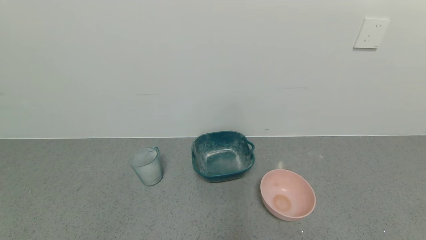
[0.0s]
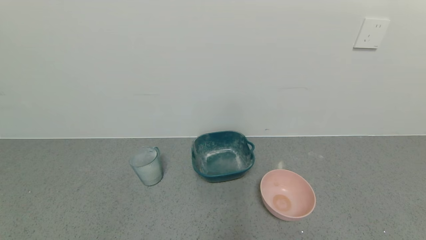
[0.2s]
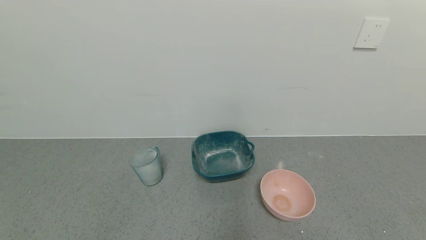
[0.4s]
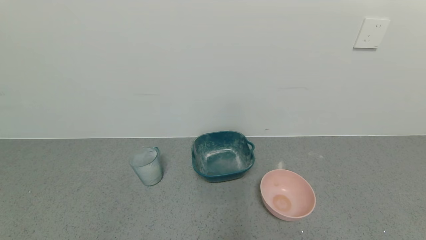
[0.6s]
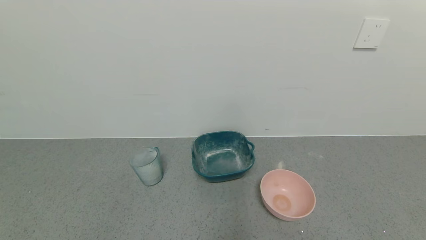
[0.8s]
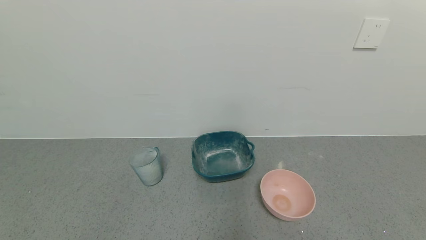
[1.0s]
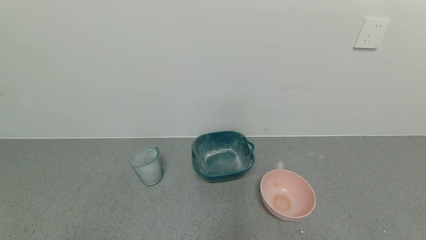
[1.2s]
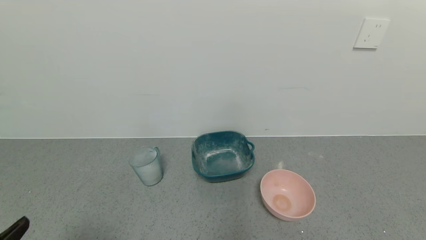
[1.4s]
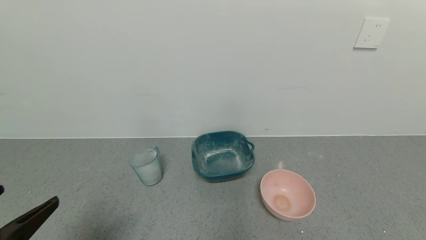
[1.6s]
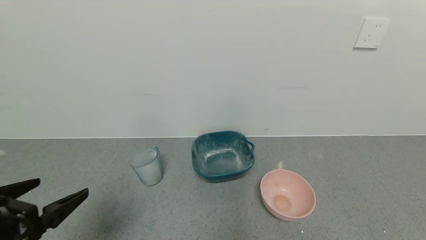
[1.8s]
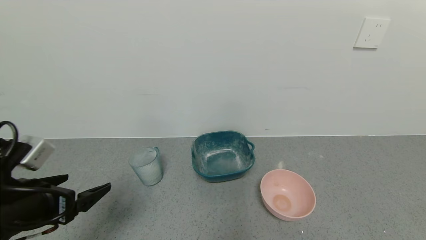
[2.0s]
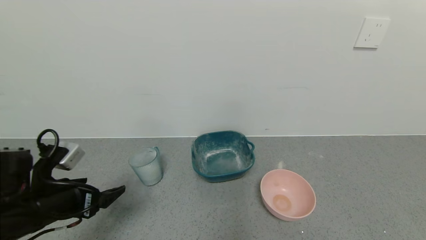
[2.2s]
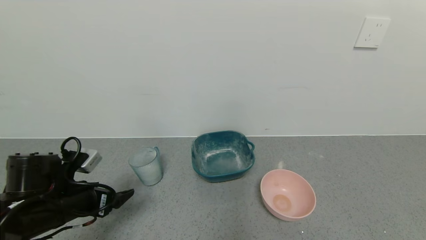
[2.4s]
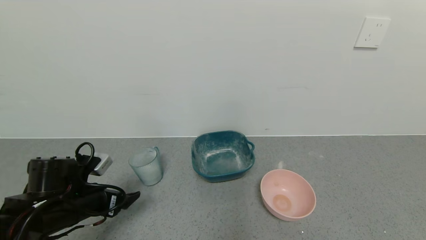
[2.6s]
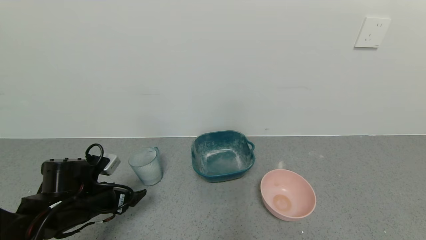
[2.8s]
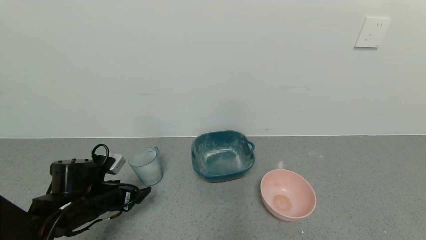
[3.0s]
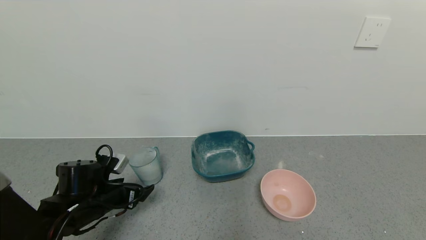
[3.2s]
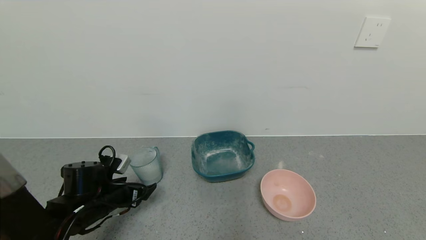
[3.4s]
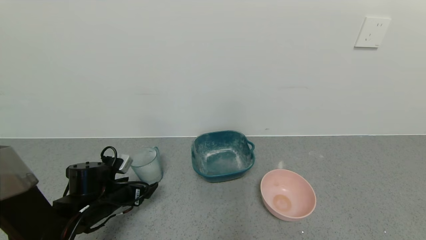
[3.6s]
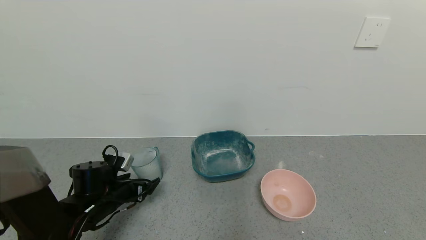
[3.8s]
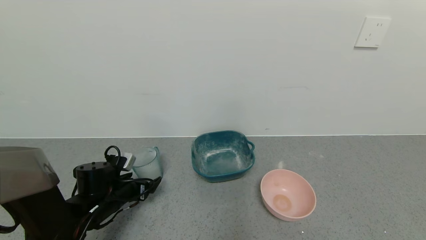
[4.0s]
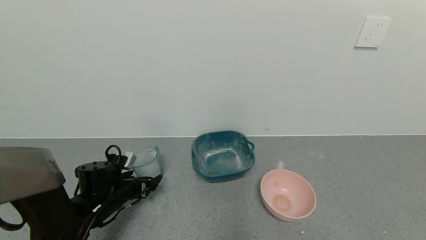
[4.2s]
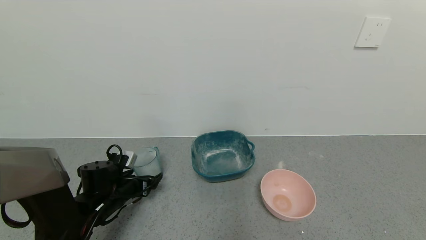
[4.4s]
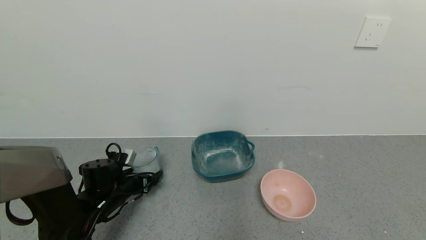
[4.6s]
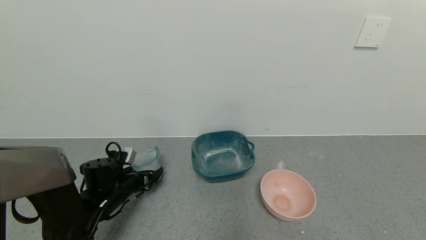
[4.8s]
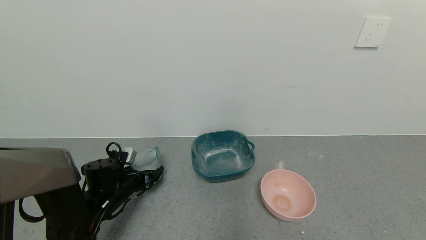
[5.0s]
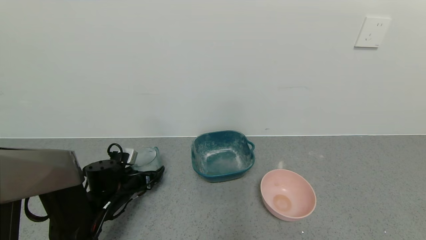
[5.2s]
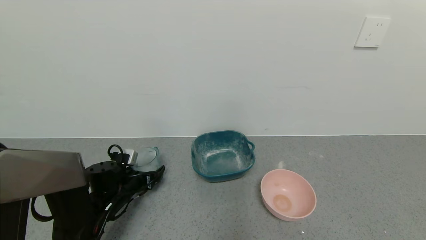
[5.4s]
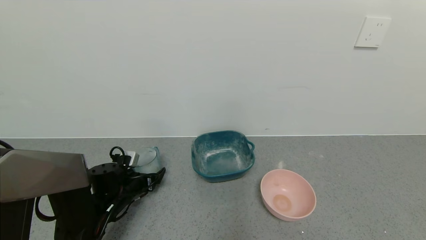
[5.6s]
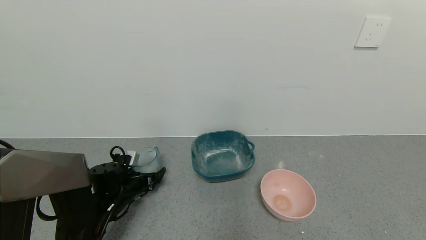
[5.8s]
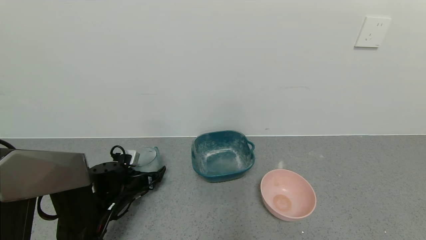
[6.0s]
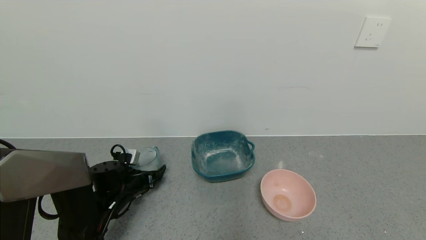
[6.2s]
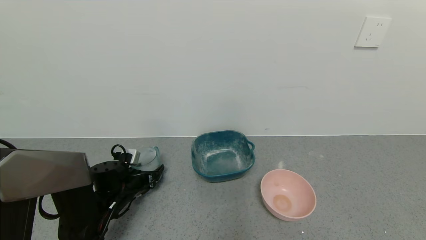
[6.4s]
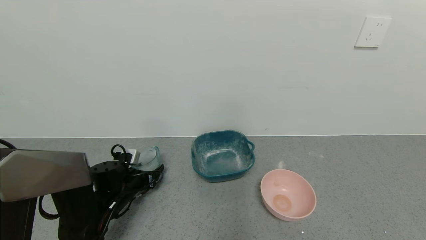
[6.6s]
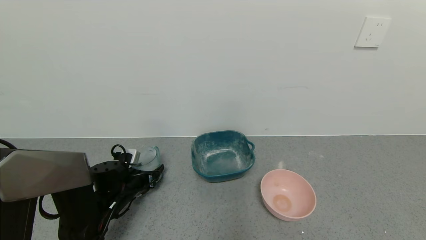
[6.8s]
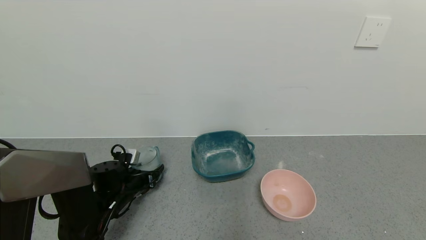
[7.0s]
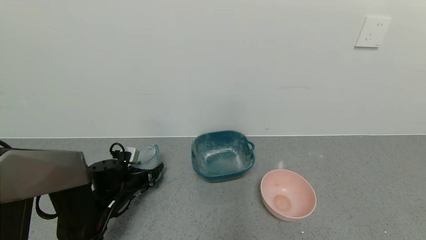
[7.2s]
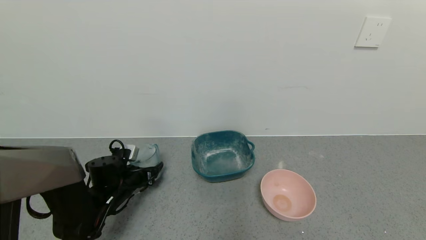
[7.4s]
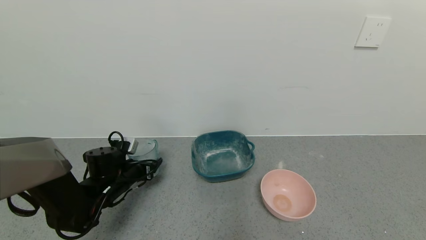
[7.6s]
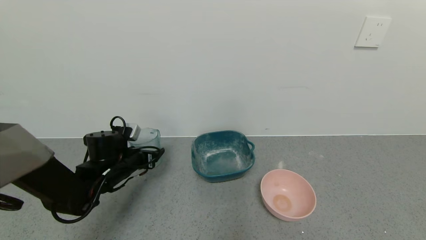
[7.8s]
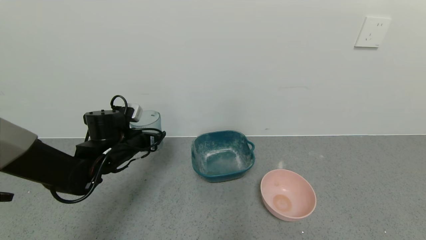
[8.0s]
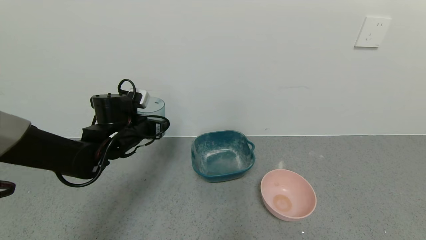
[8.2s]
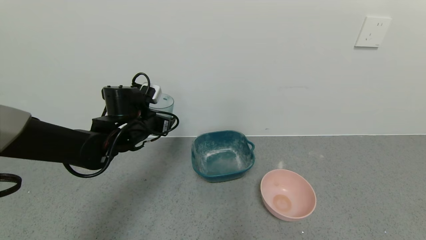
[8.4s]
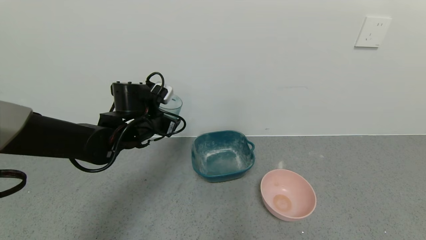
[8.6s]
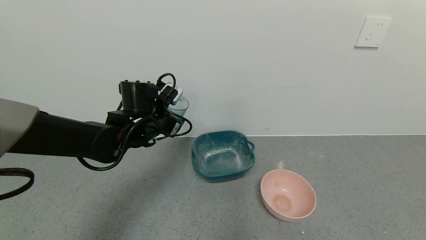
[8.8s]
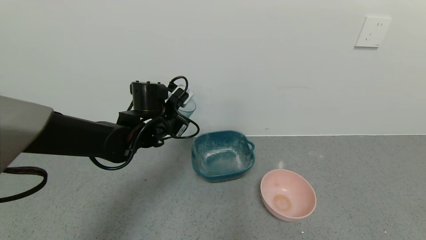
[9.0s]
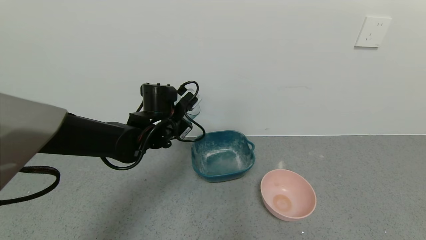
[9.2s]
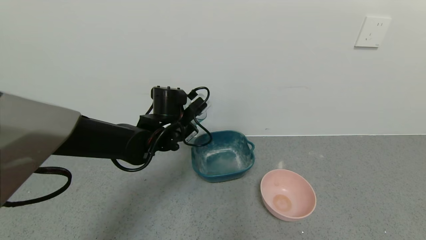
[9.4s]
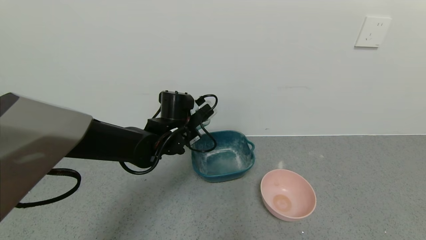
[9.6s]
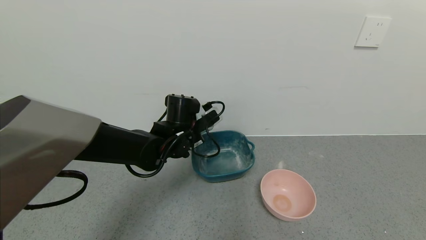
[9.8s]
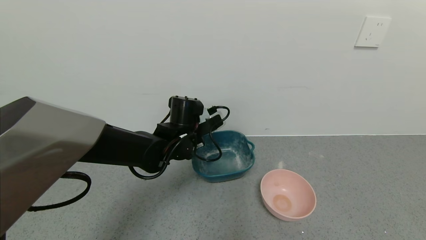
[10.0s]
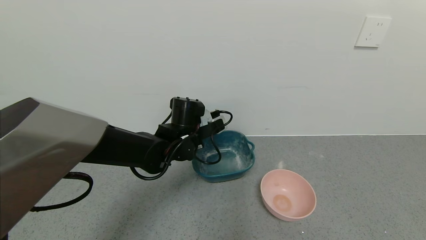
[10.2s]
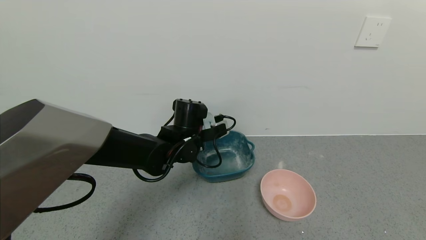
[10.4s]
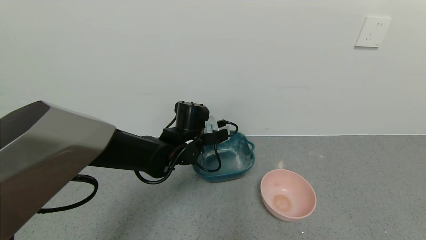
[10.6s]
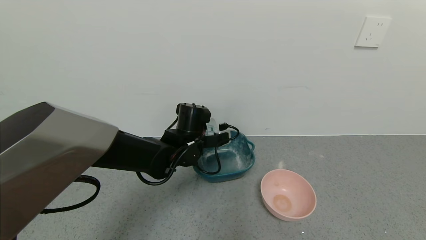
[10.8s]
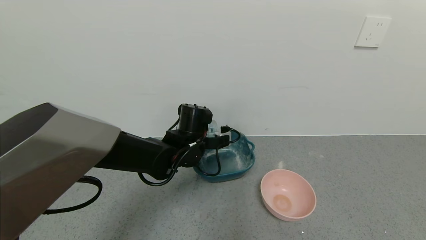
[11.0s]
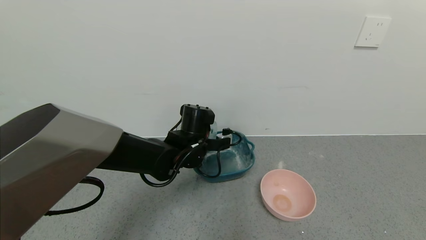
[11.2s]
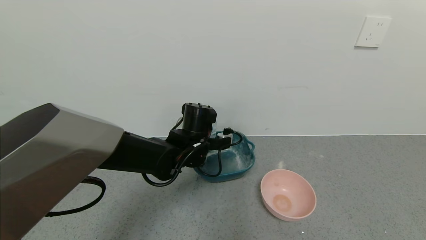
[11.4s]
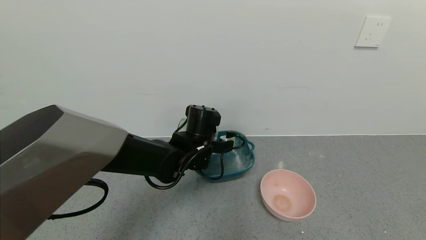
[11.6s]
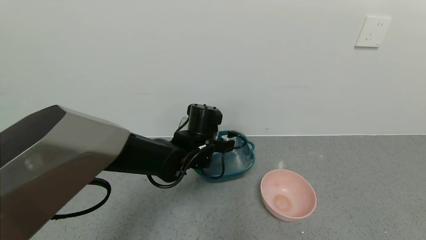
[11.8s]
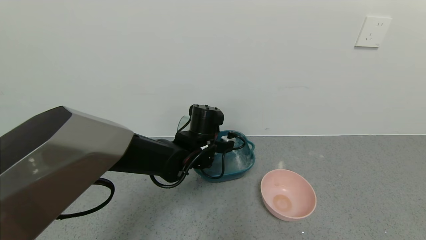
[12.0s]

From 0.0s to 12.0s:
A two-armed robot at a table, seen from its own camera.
Task of the whole recording: use a gripper to pick up the cup and pour the powder into a bowl or tray.
Step, from 0.0s to 6.6s: Pick up blue cup filled with milk powder with left gripper.
From 0.0s to 1.6s: The left gripper is displaced upward and forward by roughly 15 cm.
From 1.6s to 3.0s: The left gripper goes roughly 25 cm forward and downward.
From 3.0s to 4.4s: The left gripper changes place by about 5 cm.
From 4.4s to 6.0s: The grippers make only small movements.
From 6.0s to 7.6s: The left gripper closes.
From 7.6s to 9.0s: The left gripper travels upward and to the right by some 20 cm.
From 9.0s to 10.4s: The left gripper shifts some 5 cm to the right.

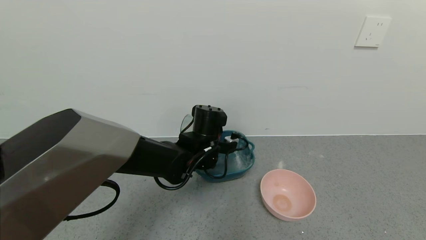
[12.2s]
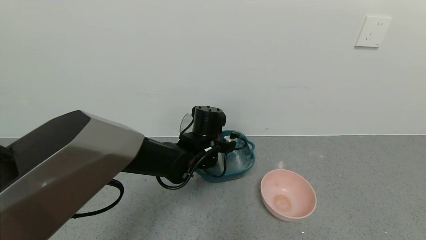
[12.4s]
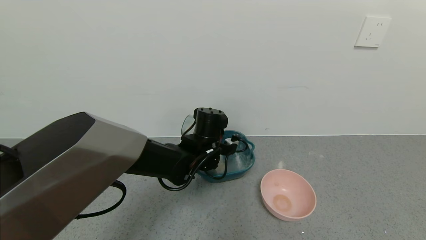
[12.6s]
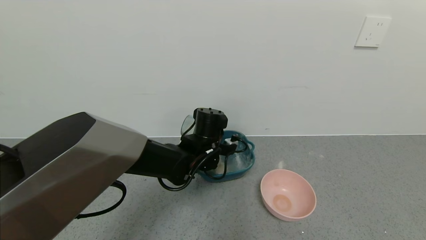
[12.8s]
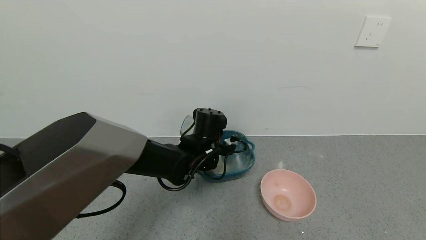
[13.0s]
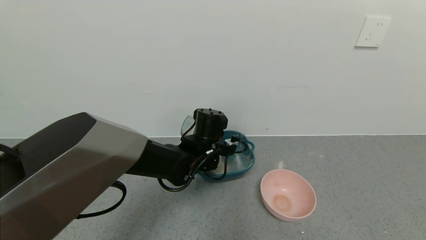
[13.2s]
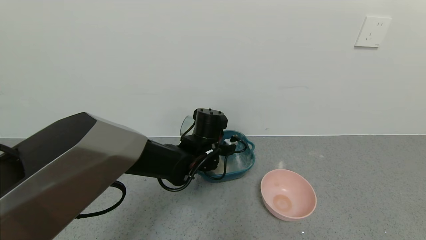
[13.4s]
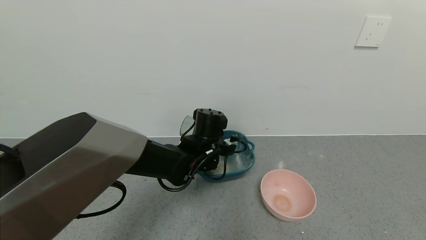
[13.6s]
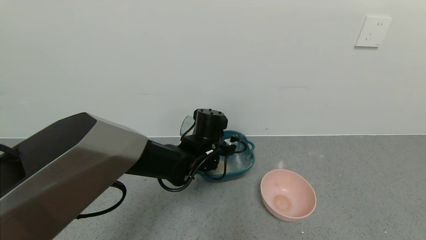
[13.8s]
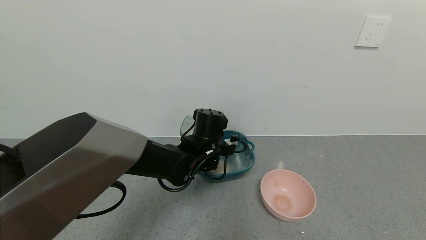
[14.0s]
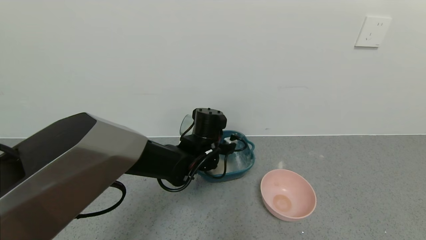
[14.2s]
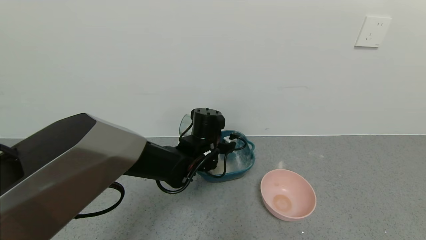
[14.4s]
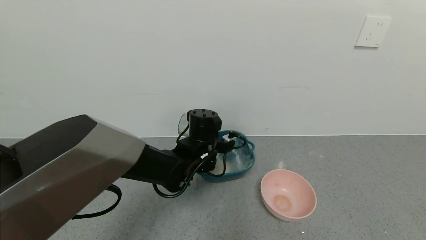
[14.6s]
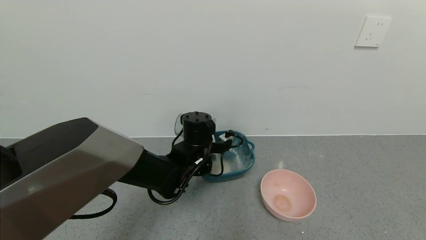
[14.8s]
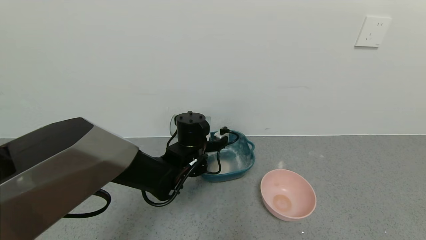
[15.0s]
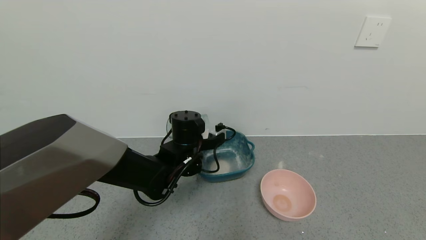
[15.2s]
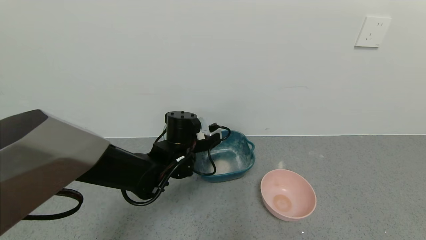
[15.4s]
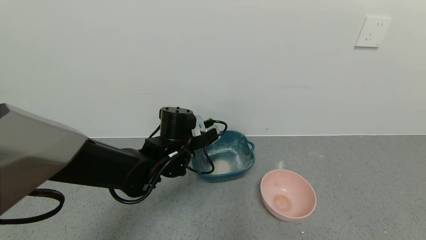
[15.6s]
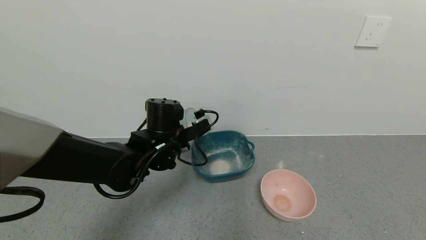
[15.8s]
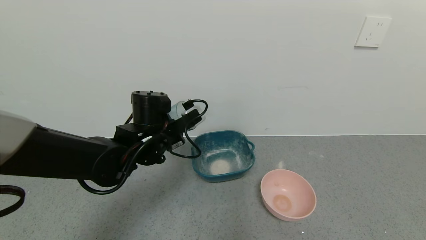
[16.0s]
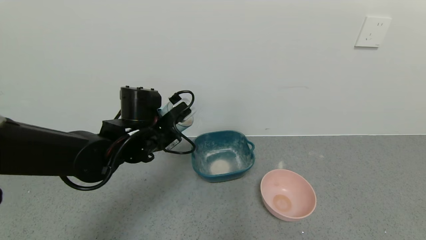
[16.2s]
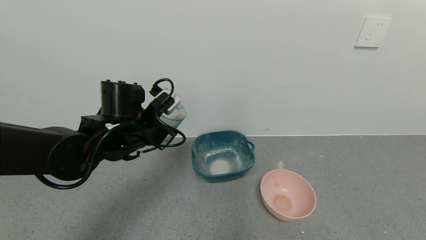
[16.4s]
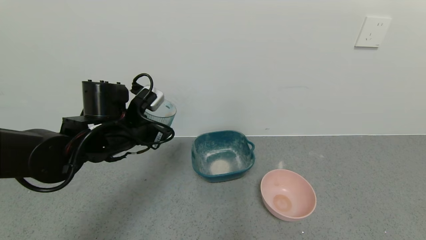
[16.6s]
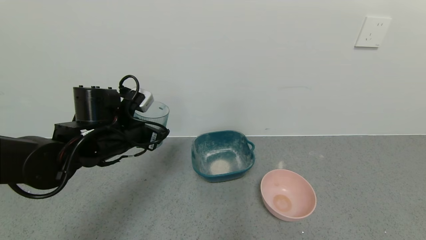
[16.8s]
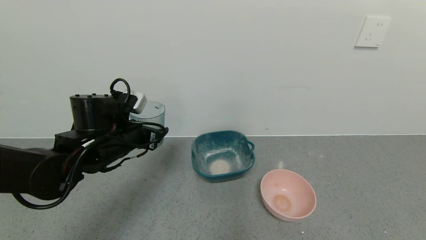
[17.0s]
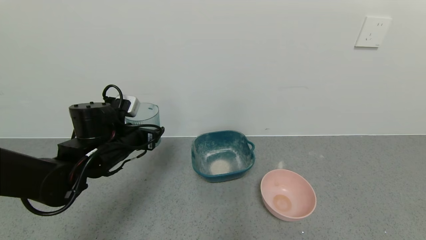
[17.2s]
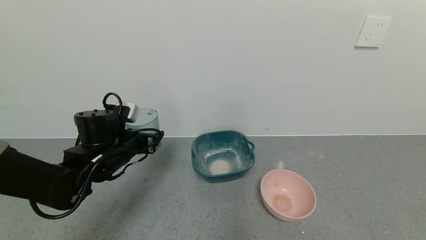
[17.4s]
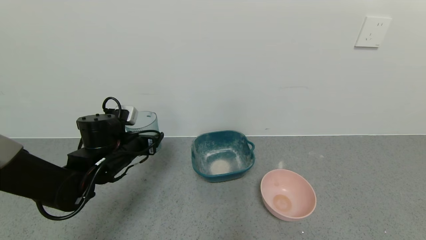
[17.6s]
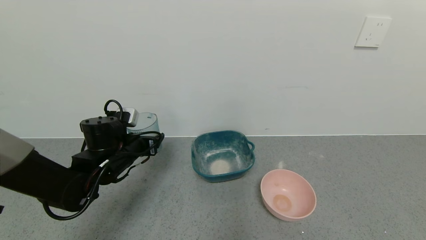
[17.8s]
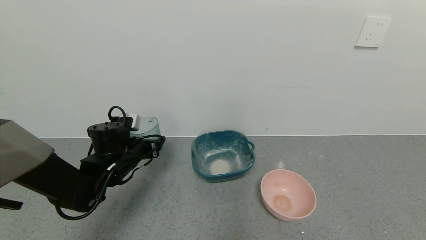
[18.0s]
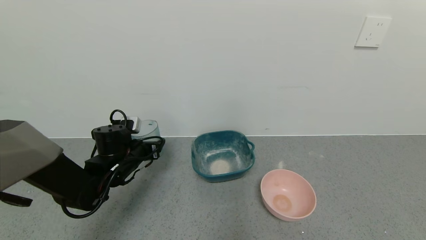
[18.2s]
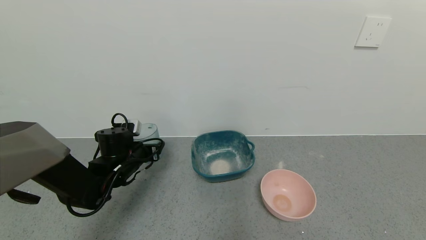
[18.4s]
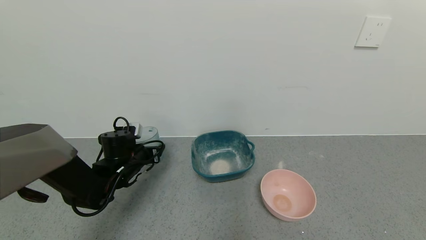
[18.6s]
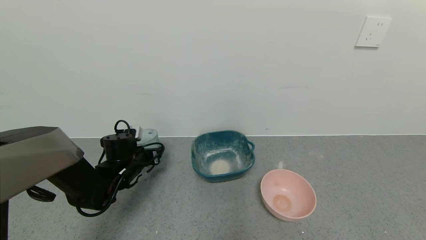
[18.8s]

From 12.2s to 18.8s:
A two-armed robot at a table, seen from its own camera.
Task of the whole recording: use a gripper to pick up the cup and pour the powder into a bowl or tray.
Step, from 12.2s to 15.2s: Pour the milk powder into the blue basin with left gripper.
From 12.2s to 13.8s: The two grippers keep their place.
From 13.8s to 15.4s: The left gripper ends up about 5 cm from where it was.
From 15.4s to 17.2s: The left gripper shifts roughly 15 cm to the left.
From 17.2s to 18.8s: The left gripper travels downward and forward by roughly 10 cm.
